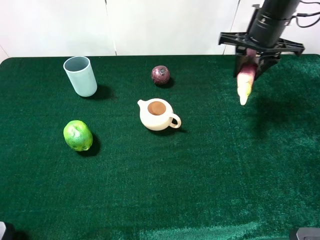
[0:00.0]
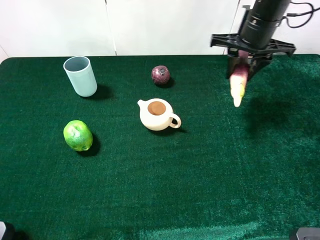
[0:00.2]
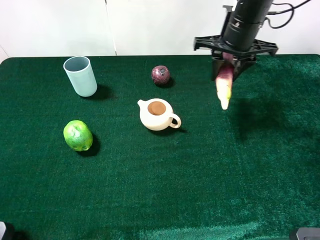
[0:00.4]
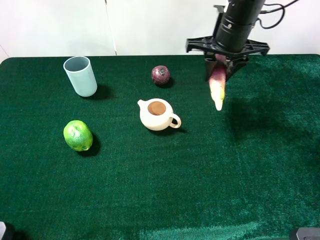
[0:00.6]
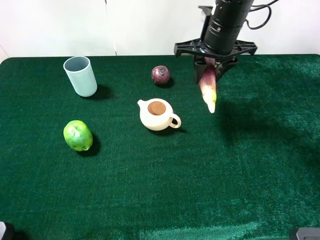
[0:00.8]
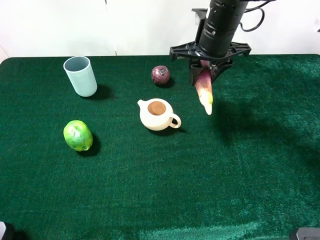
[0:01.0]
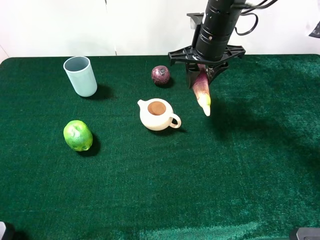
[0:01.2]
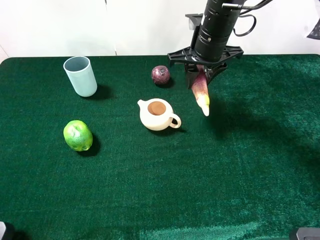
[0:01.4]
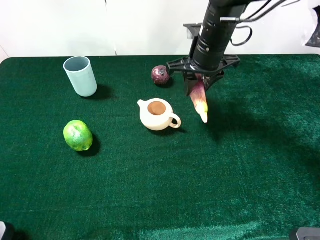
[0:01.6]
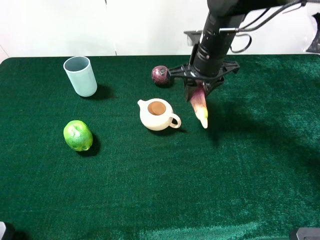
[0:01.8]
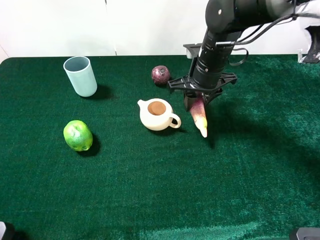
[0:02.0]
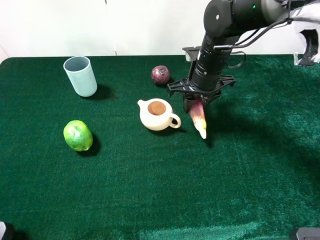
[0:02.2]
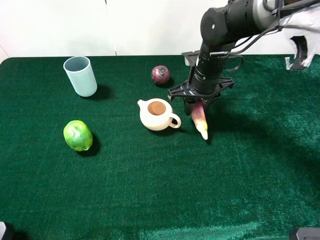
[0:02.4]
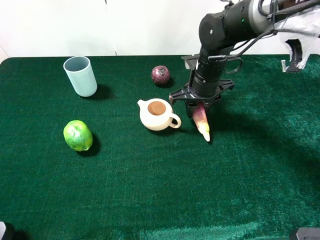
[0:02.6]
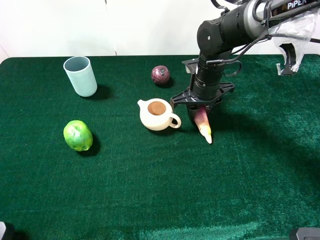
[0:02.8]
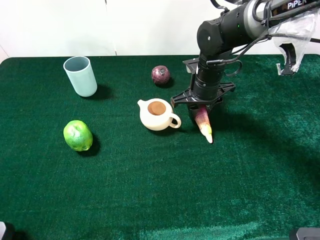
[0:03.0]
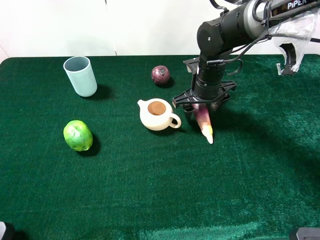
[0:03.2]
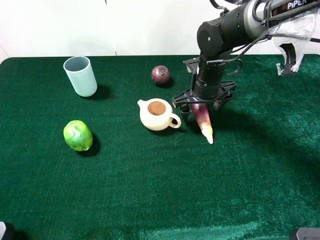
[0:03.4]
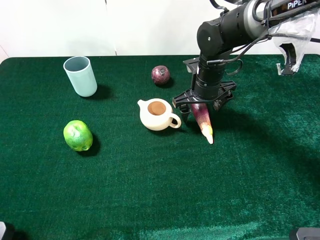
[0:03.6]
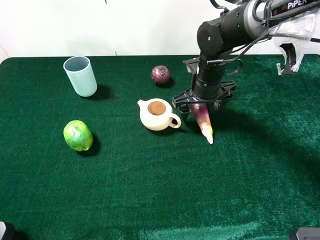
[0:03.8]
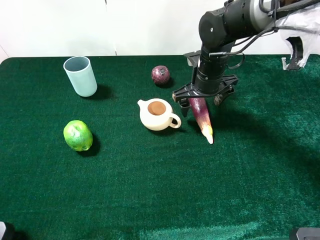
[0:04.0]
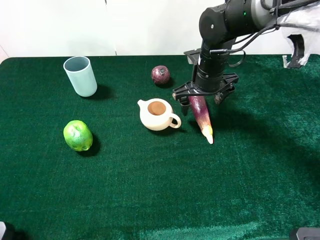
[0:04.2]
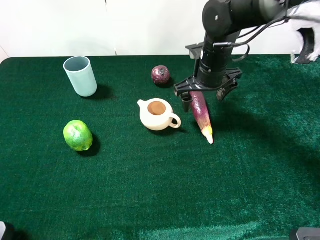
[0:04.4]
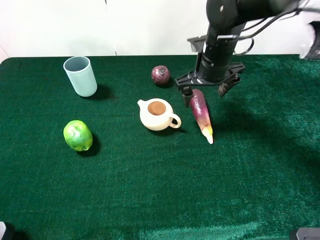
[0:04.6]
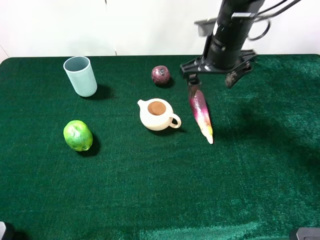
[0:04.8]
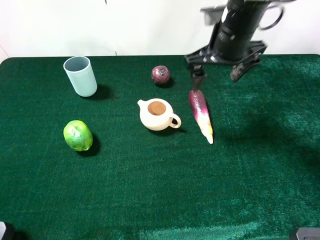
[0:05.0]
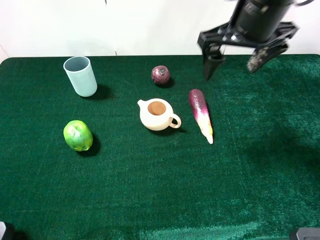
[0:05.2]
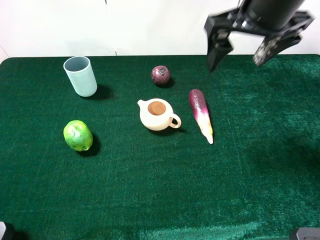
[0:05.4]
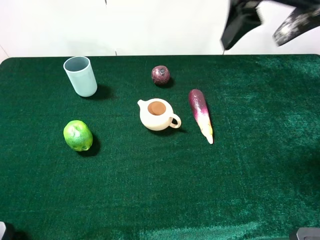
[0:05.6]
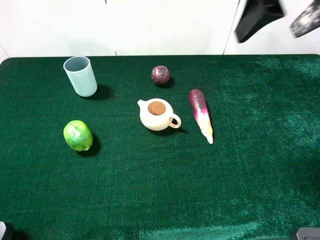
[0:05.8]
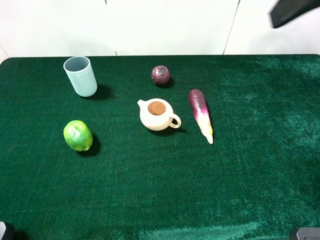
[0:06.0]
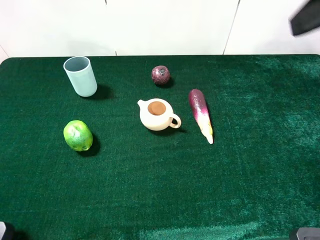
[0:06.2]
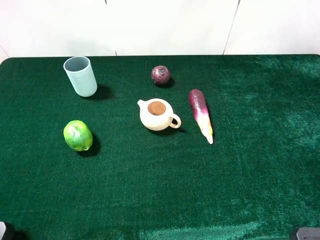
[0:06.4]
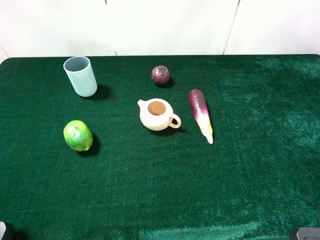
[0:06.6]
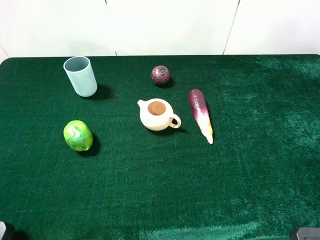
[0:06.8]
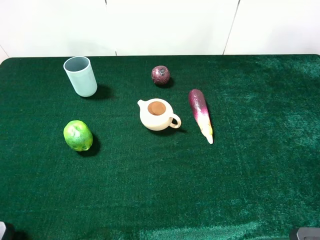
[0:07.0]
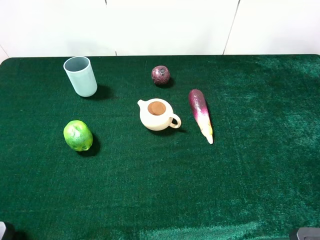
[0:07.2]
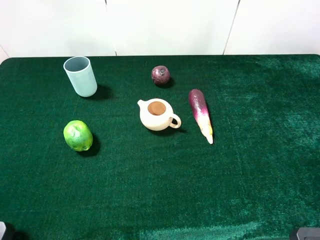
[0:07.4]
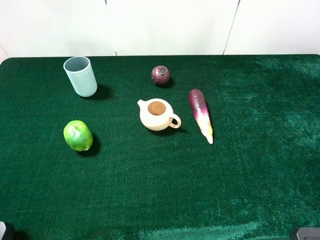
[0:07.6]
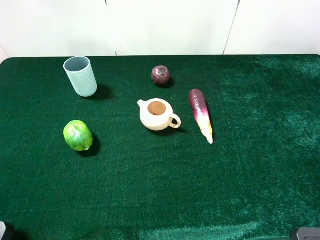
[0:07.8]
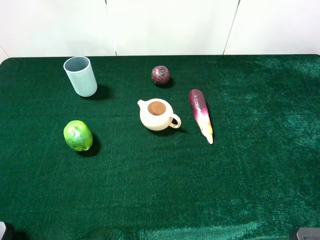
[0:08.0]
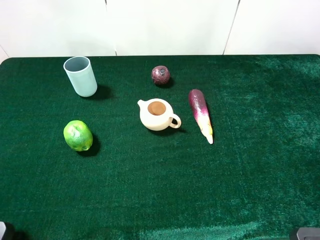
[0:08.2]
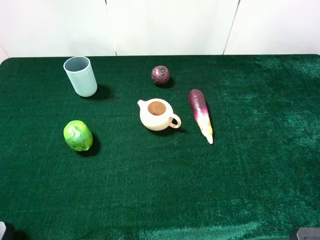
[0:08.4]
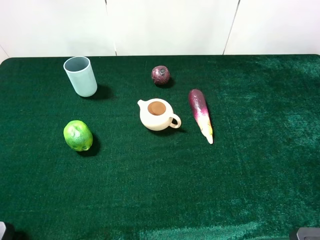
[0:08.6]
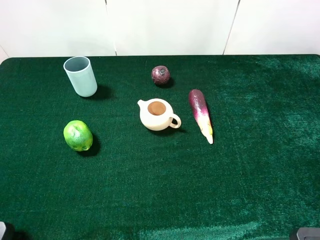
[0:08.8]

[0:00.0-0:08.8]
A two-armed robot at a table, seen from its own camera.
Task of the whole recording: the gripper move the object.
Step, 0:00.0 to 0:03.8: Place the eggplant on the table with the right gripper.
0:00.0 to 0:01.4: The right gripper is displaced to the left by approximately 10 cm.
0:01.4 to 0:03.0: The right gripper shifts some 10 cm downward.
0:03.0 to 0:04.4: The right gripper opens its fingers.
0:04.4 to 0:05.8: The right gripper goes some 25 cm upward and backward.
0:05.8 to 0:07.4: The right gripper is displaced backward, to the right and downward by roughly 25 cm.
0:07.4 to 0:08.8: Both grippers stay put.
